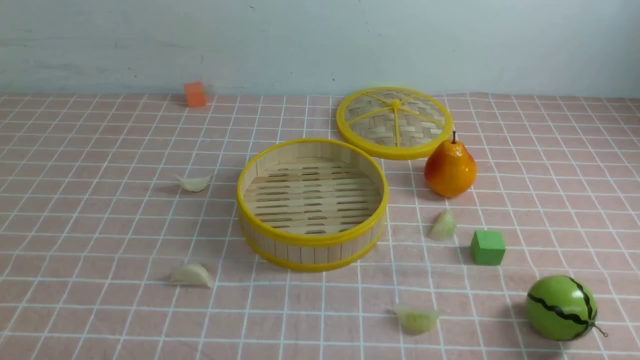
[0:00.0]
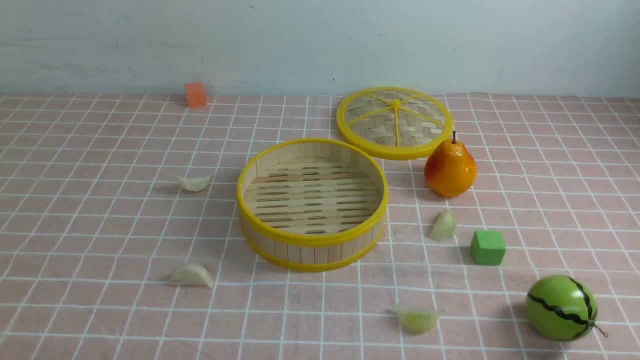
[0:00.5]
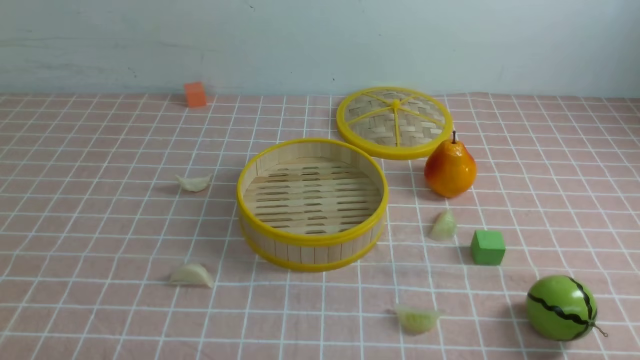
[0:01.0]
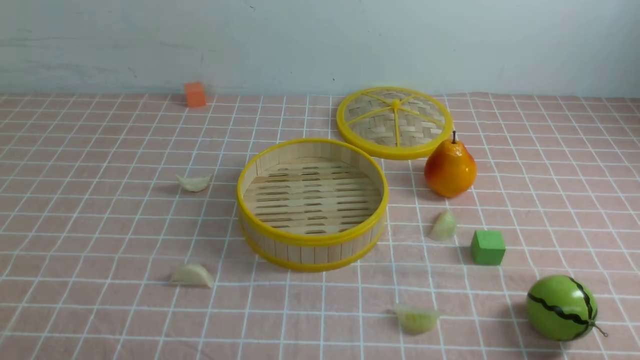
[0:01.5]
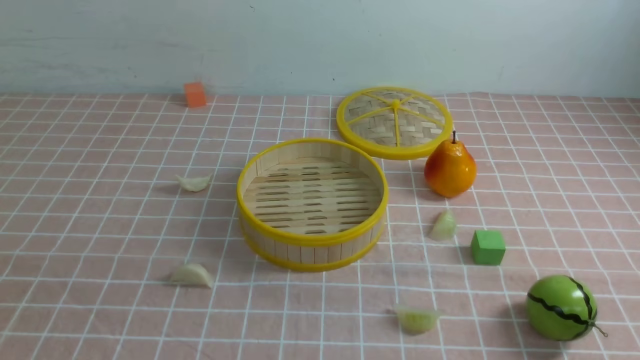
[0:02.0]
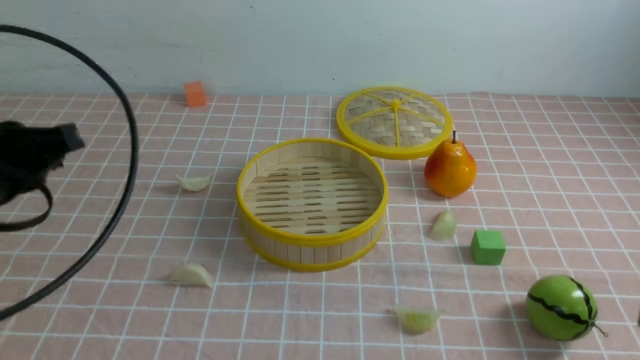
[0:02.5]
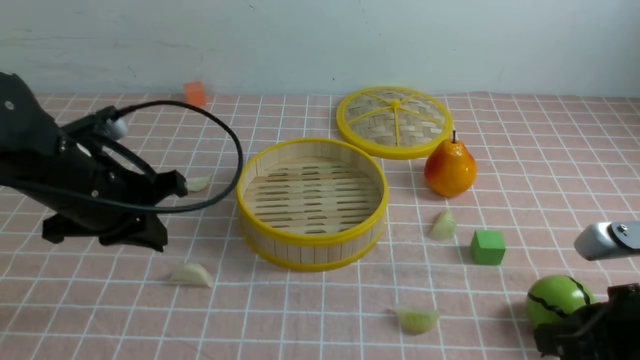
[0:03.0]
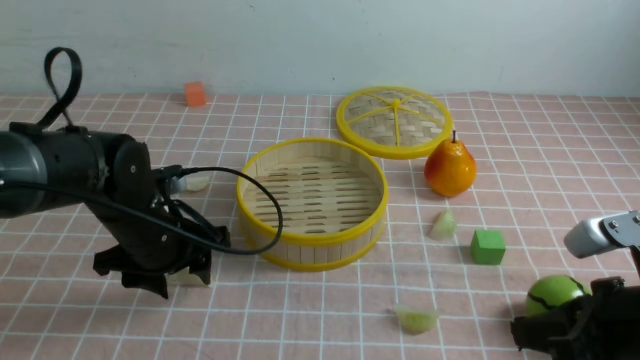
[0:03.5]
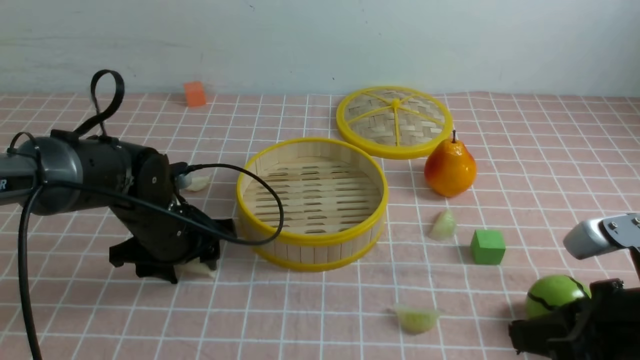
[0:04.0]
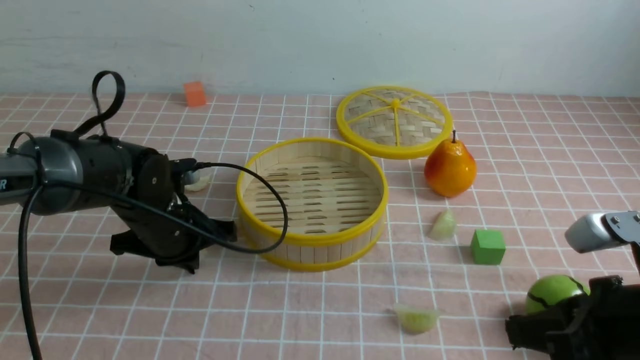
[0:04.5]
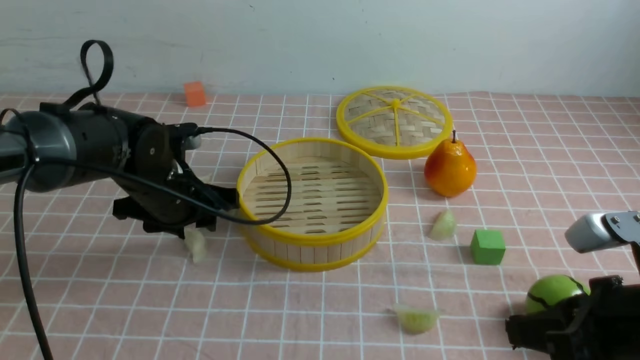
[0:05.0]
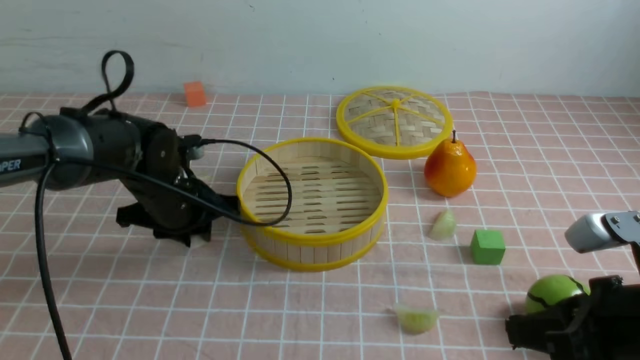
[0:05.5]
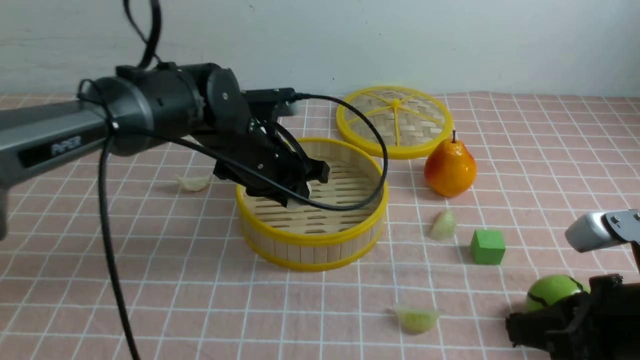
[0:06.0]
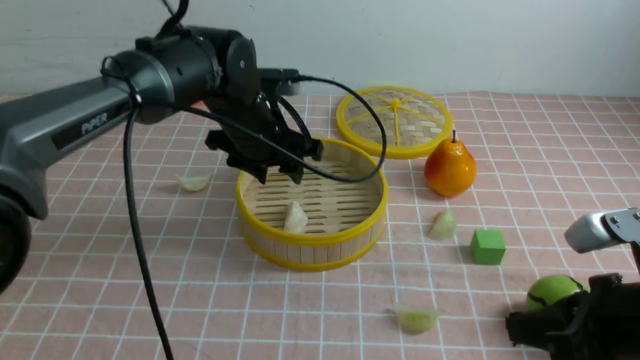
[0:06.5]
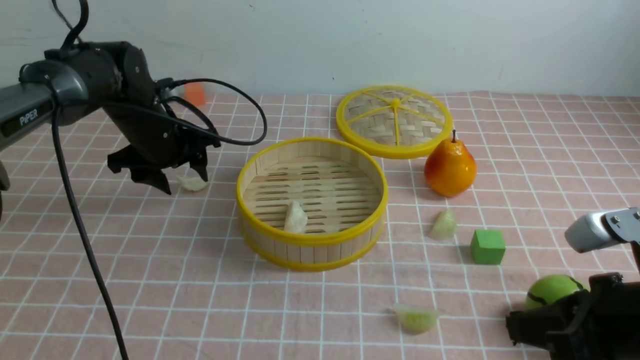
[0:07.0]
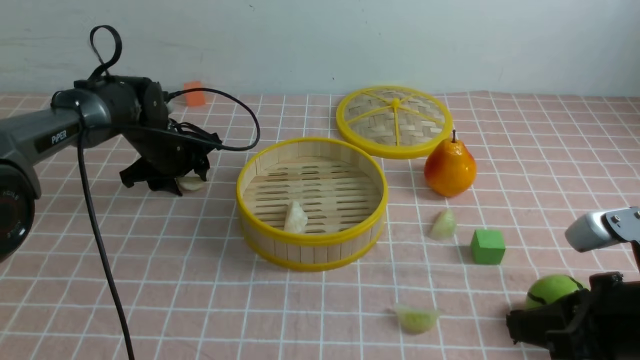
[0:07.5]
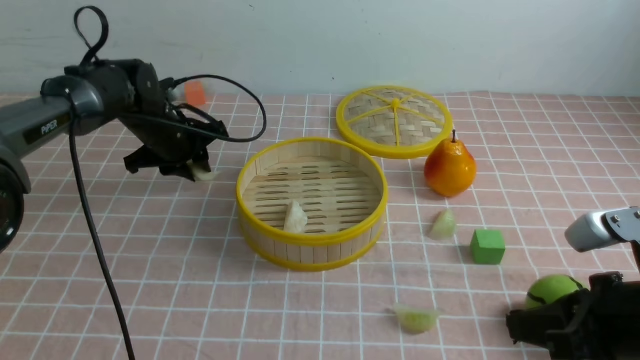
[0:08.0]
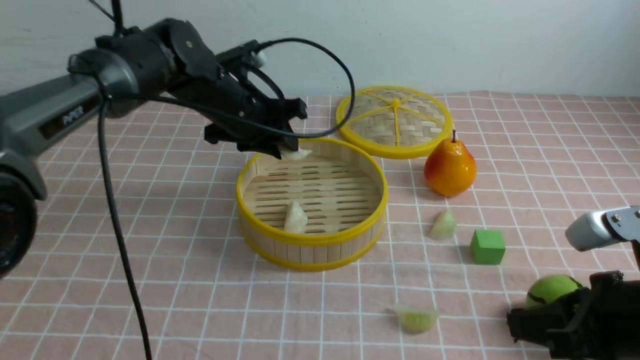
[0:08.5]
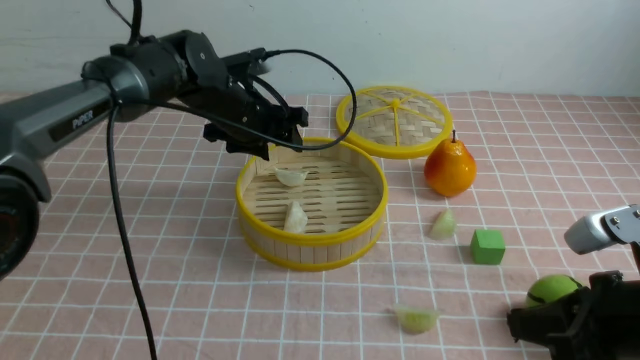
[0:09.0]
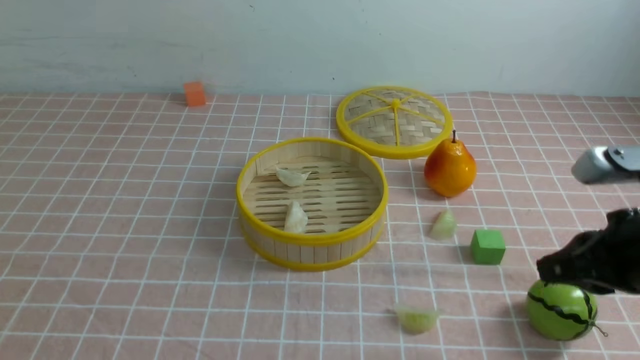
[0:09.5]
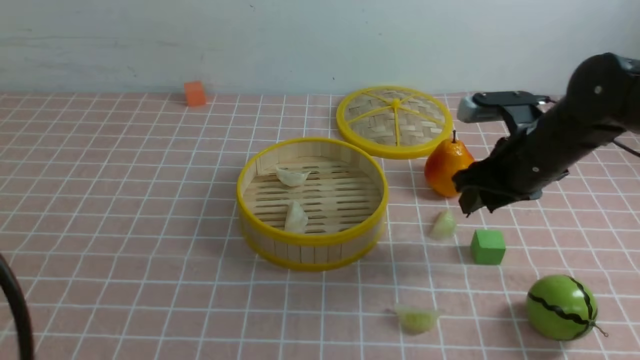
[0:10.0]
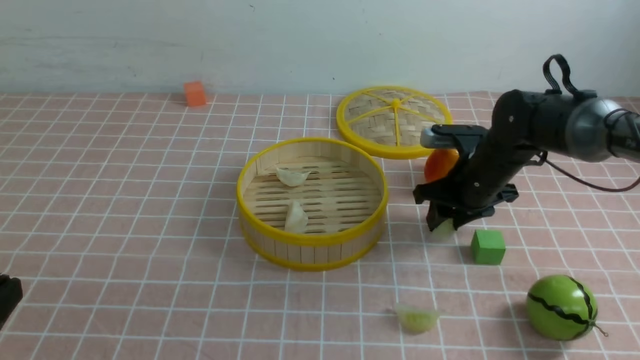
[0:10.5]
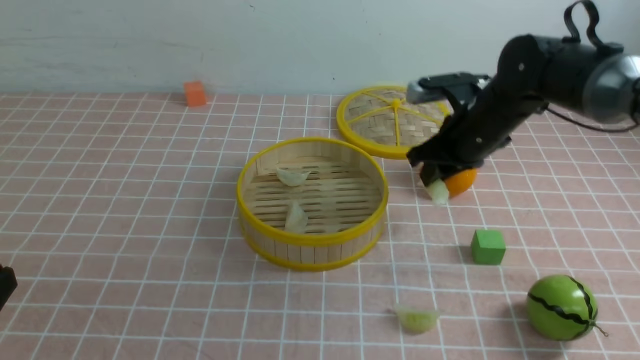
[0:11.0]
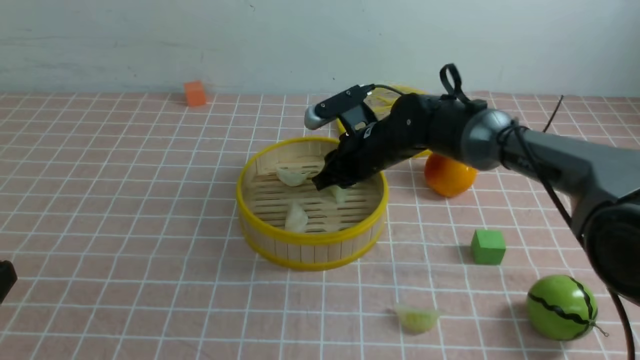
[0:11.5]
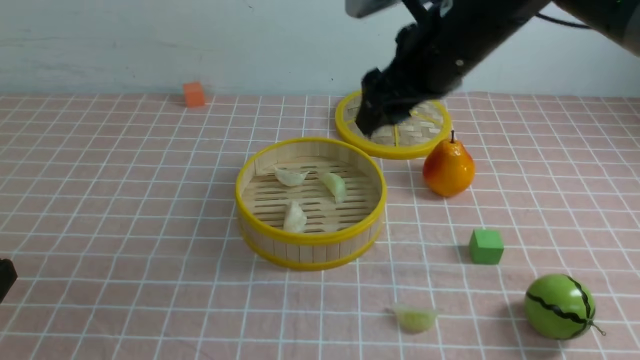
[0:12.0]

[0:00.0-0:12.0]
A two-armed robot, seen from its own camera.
Task of the whole recording: put the dumplings into the steamer on the table with the pink tablecloth.
Step, 0:00.0 to 0:05.0: use the left arm to grab a dumpling.
Step, 0:06.5 to 0:07.5: use the left arm to grab a dumpling.
Step, 0:09.0 to 0:10.5: use the right arm to grab a dumpling.
Step, 0:11.0 to 0:11.5: use the right arm to put the dumpling into the steamer.
0:02.0 to 0:04.0: The right gripper shifts some 15 cm forward, downward and to the left, while the left gripper moves forward and downward, some 35 cm, and opens its fingers.
0:04.0 to 0:06.0: The left gripper is displaced to the right and upward by about 10 cm, and closes its fingers.
0:06.0 to 0:08.0: The left gripper shifts roughly 15 cm to the left and forward, and opens, then closes again.
0:08.0 to 0:10.0: The left gripper travels backward and upward by roughly 40 cm, and closes its fingers, while the right gripper travels forward by about 20 cm, and opens up.
0:10.0 to 0:12.0: The right gripper is displaced to the left and upward by roughly 15 cm. The left gripper moves downward, roughly 10 cm.

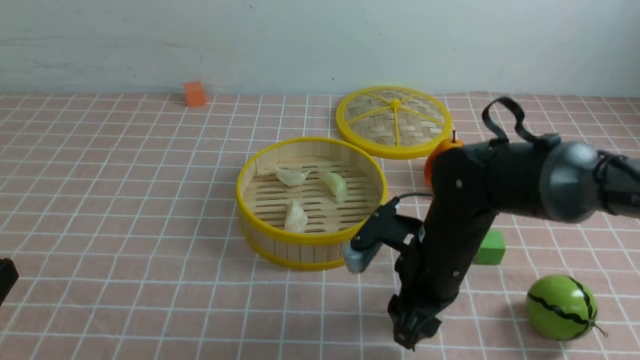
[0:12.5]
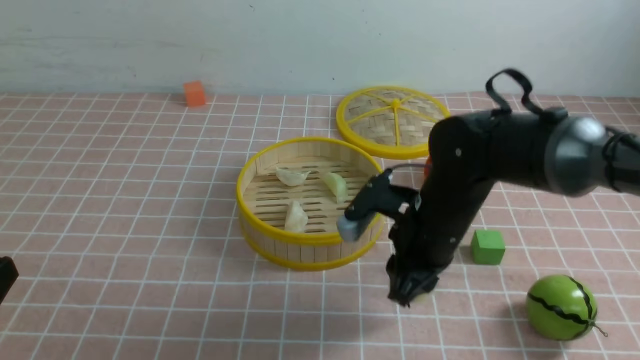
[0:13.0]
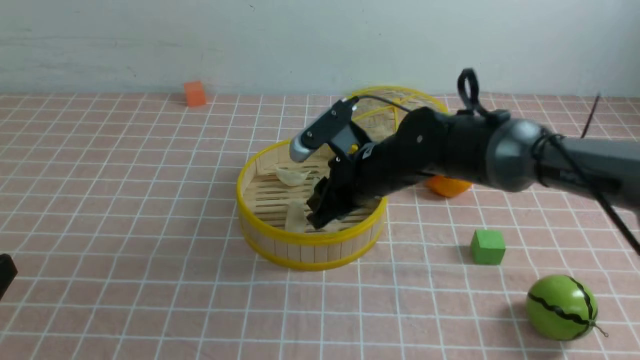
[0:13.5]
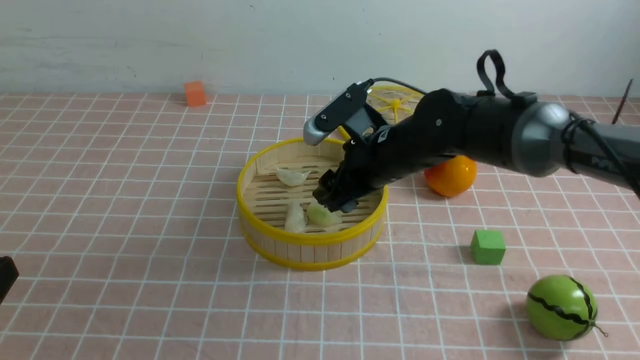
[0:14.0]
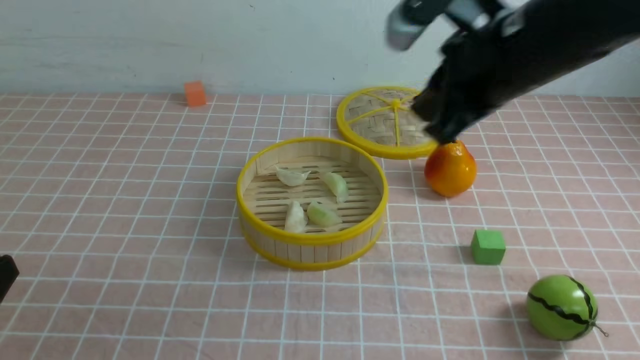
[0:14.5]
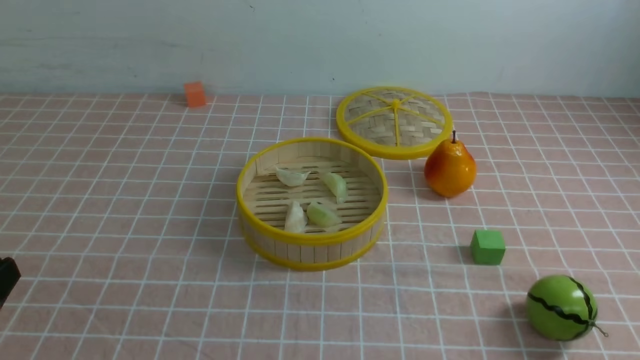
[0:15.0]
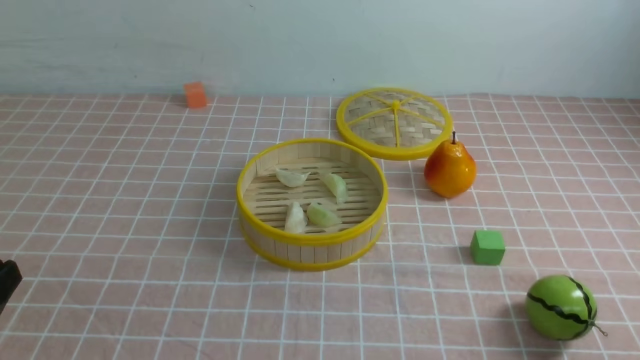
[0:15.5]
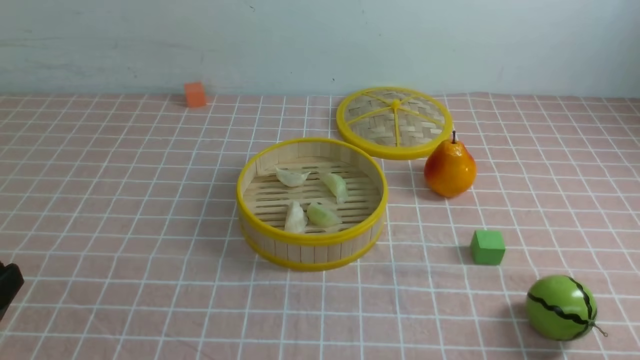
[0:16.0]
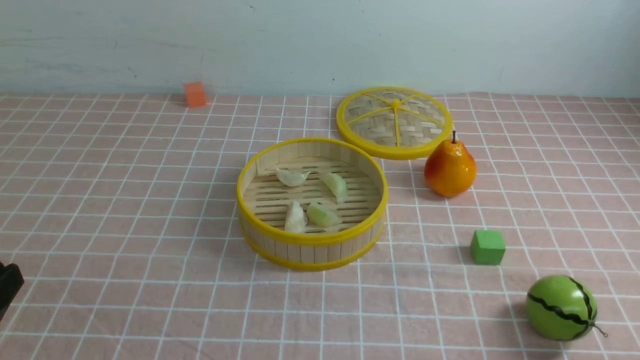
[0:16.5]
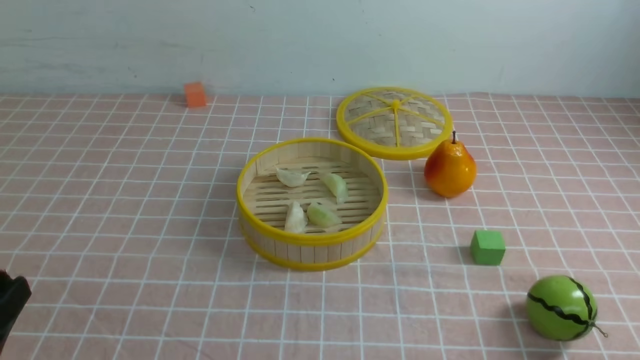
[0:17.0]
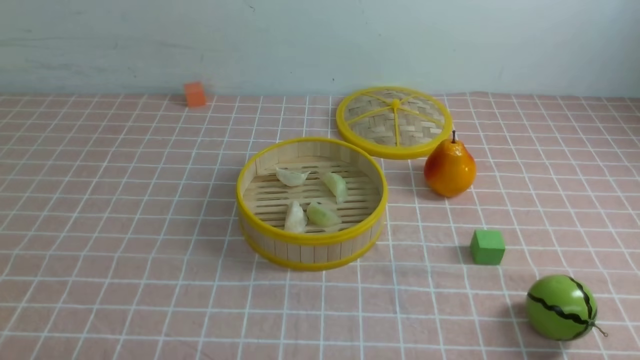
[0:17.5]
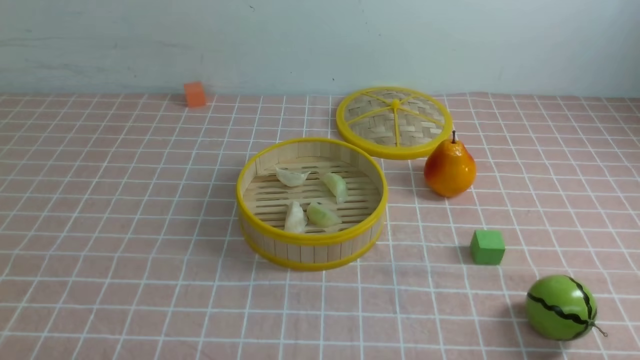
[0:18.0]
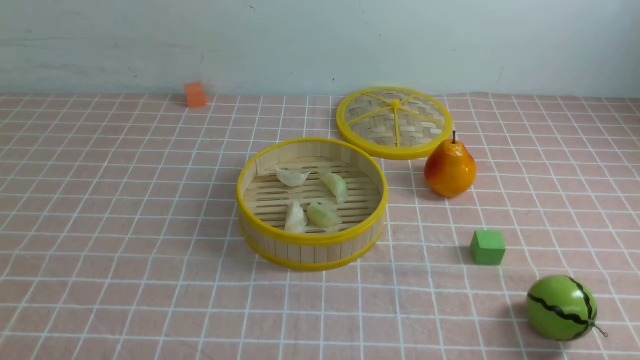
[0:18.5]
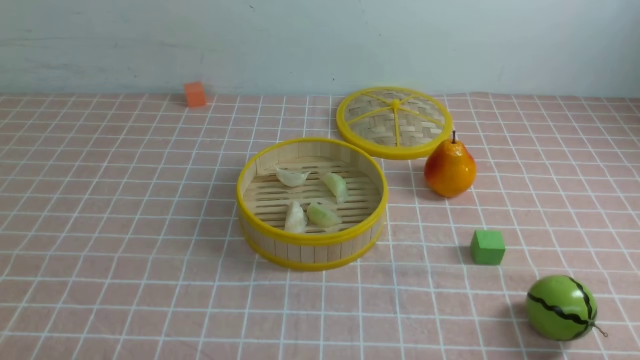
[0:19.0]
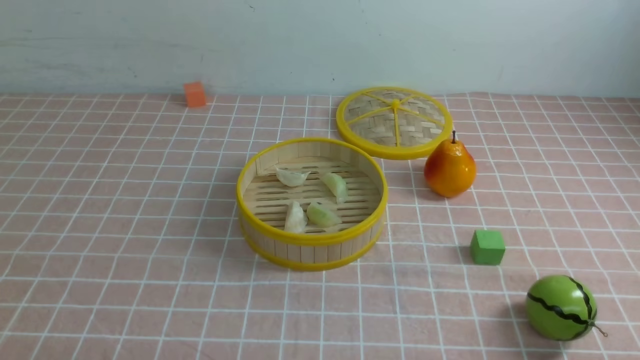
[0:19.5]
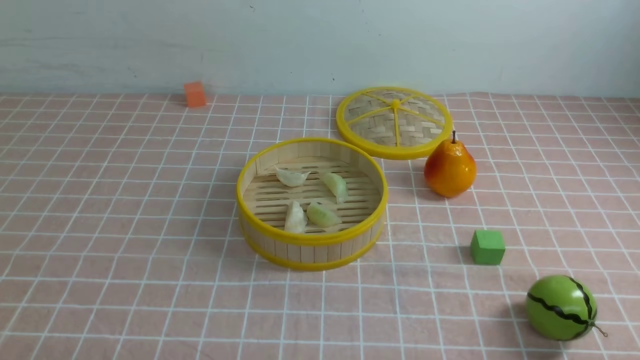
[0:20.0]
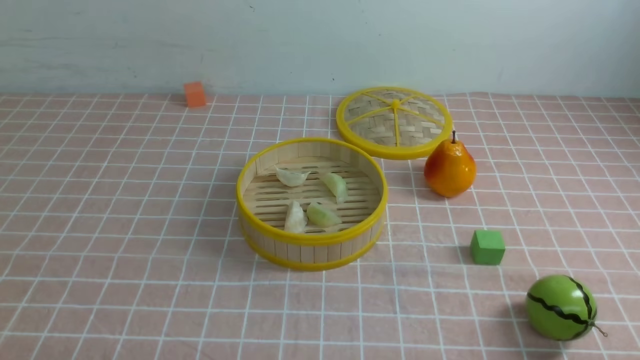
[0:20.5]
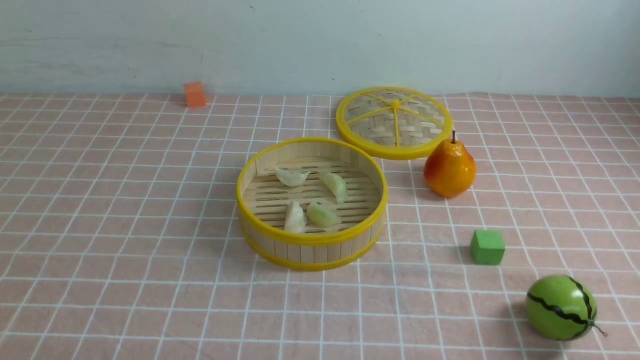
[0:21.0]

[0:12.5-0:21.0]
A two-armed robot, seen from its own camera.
Task of the whole recording: put the dumplings into the steamer on the table with the pink tablecloth.
Step, 0:13.0 to 0:13.5: use the right arm to put the dumpling into the steamer.
0:12.5 to 0:14.5: The right gripper shifts some 25 cm upward, and closes.
0:14.5 to 0:16.5: The right gripper moves backward, downward and to the right, approximately 35 cm.
0:19.0 to 0:21.0: Neither gripper changes place.
